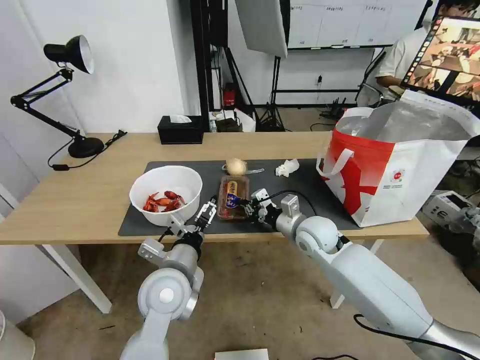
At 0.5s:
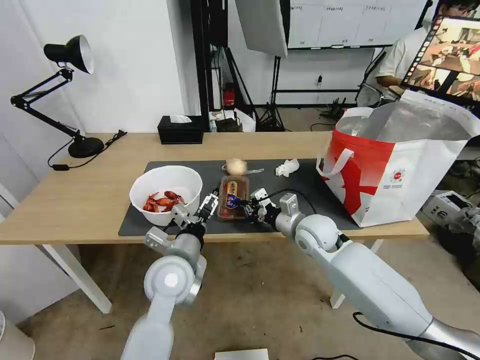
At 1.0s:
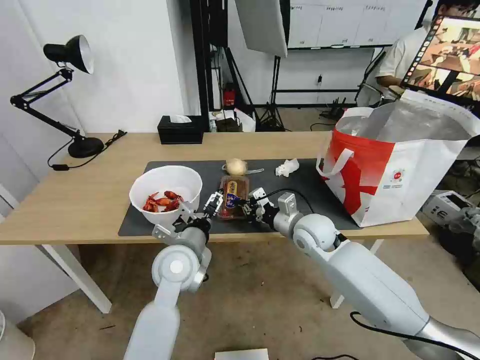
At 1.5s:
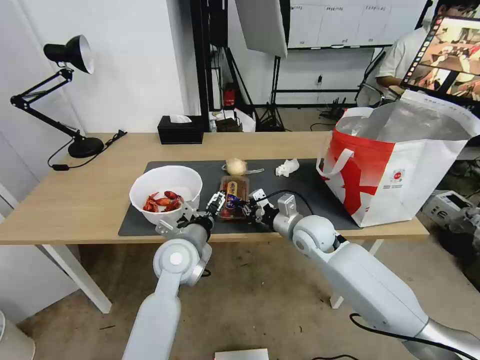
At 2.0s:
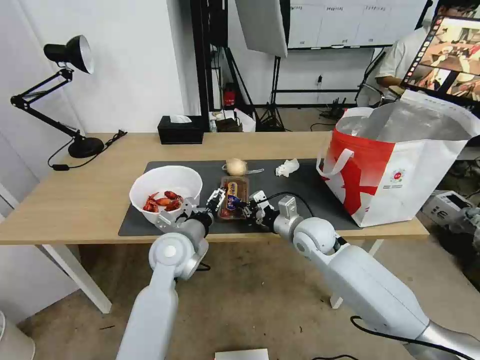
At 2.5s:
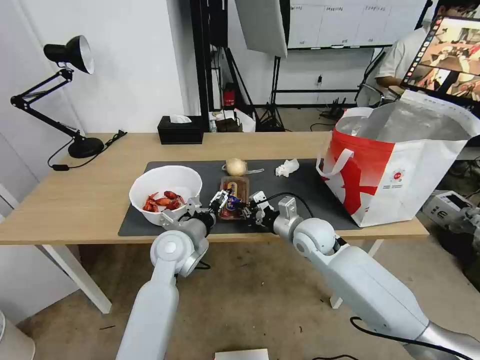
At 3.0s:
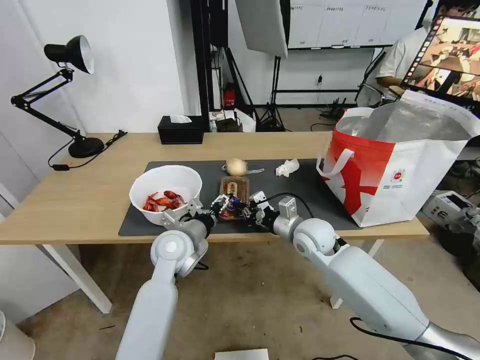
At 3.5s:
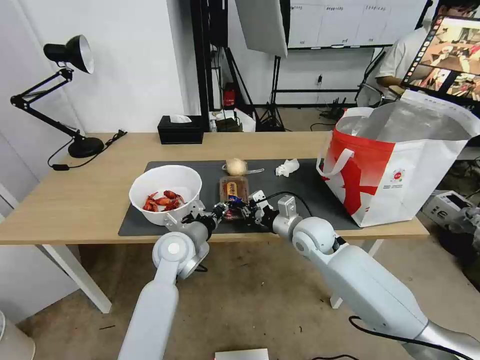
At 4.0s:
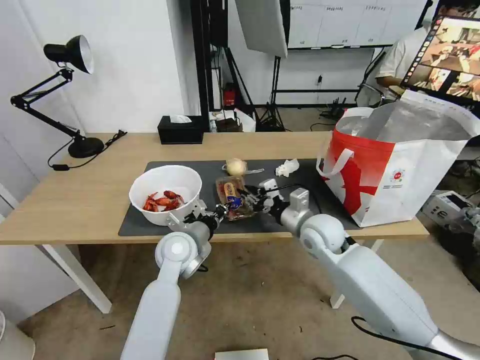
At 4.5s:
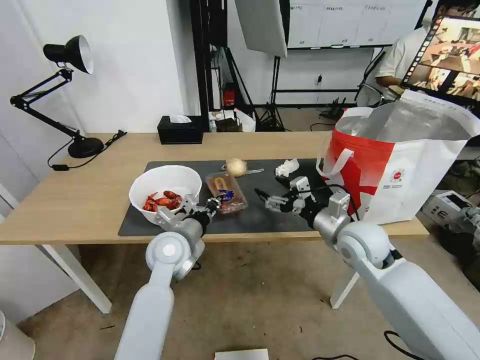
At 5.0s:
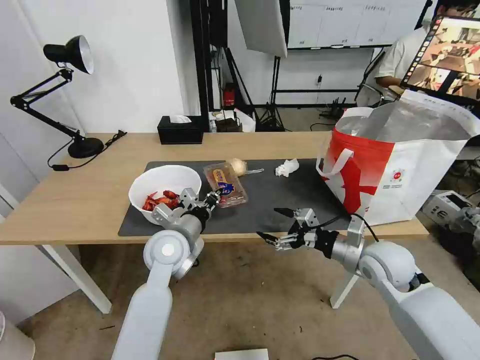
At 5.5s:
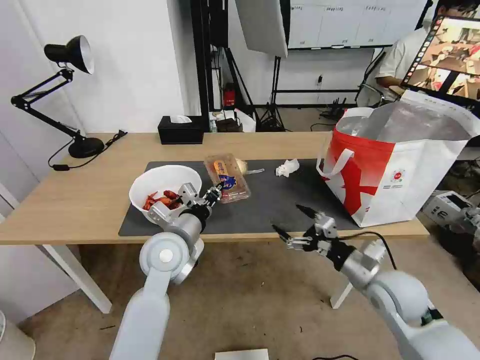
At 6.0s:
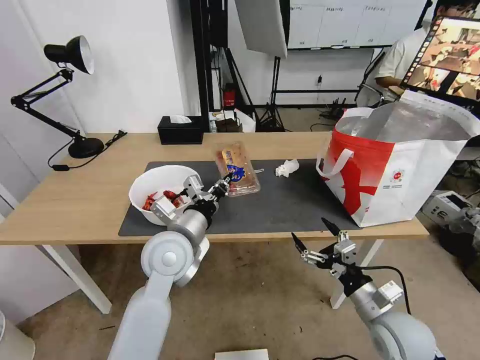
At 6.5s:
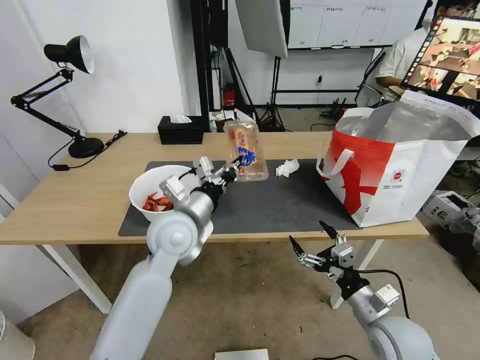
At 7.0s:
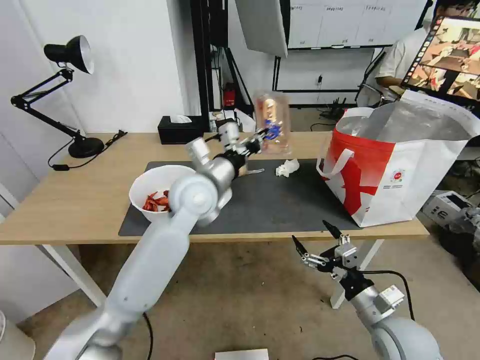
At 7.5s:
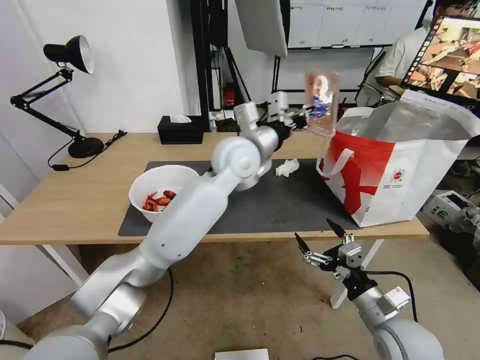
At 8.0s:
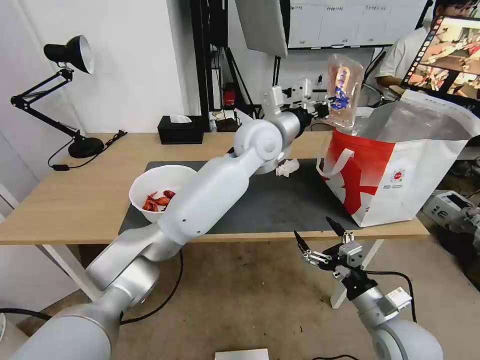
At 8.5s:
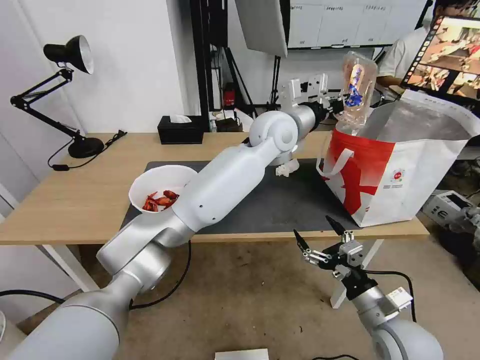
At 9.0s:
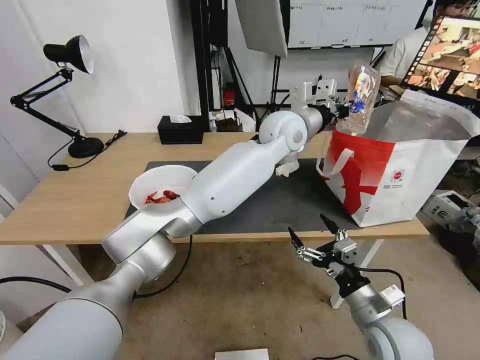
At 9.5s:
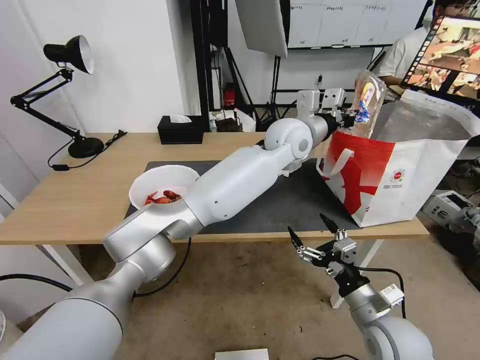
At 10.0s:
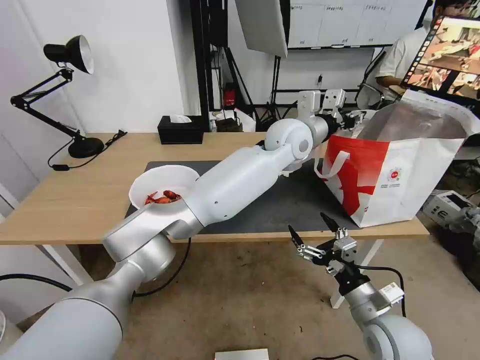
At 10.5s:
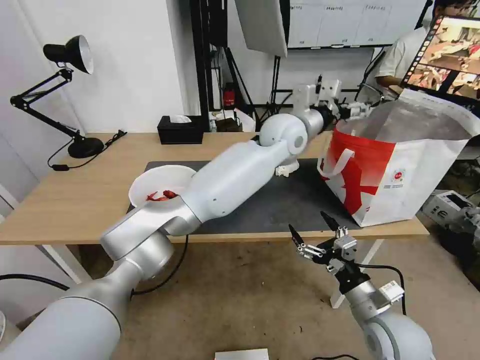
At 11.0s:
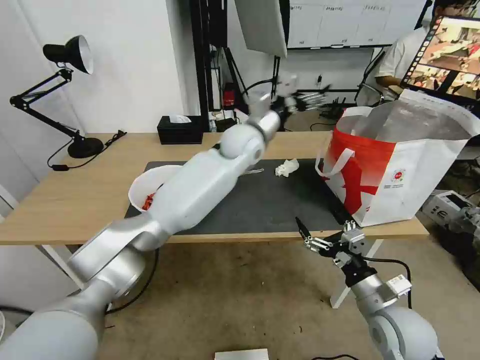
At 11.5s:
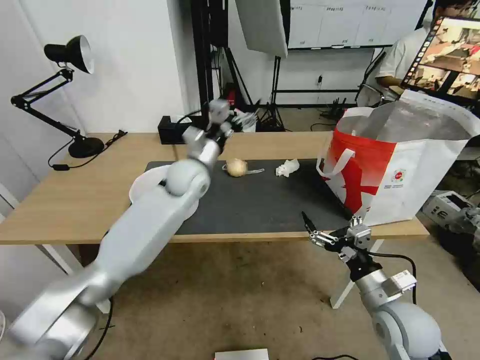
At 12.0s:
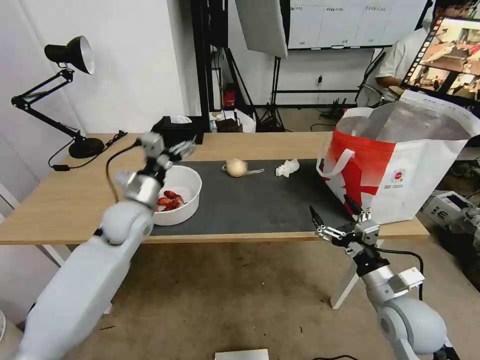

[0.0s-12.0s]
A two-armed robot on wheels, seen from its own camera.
Task of the whole recording: Pick up the trash from the table and place it into the takeout bag.
0.0s to 2.0s: The left gripper travels forward by roughly 10 cm.
2.0s to 4.0s: The left gripper closes its fingers.
4.0s to 6.0s: The left gripper travels upward and backward by about 10 cm; the right gripper travels backward and to the right by roughly 25 cm, and opens its fingers.
6.0s to 8.0s: The left gripper heads forward, to the right and upward, covering approximately 30 cm.
8.0s to 10.0s: The left gripper goes about 5 cm to the right, and opens up.
10.0s to 12.0s: The left gripper travels to the left and downward by about 40 cm, and opens up.

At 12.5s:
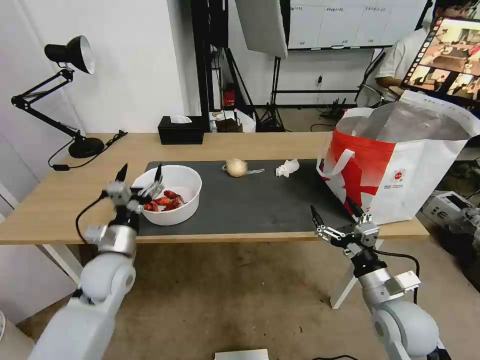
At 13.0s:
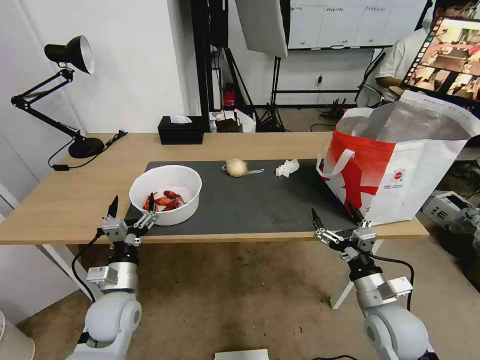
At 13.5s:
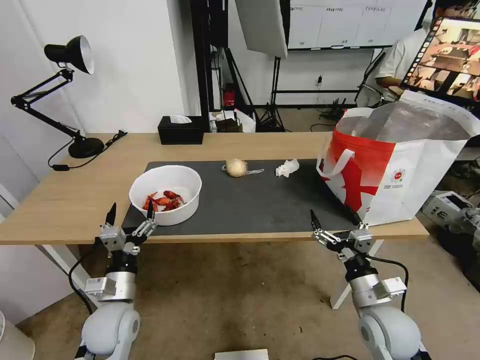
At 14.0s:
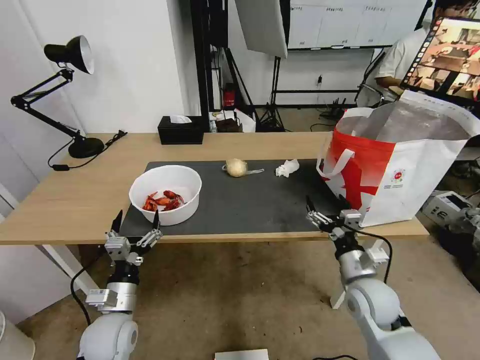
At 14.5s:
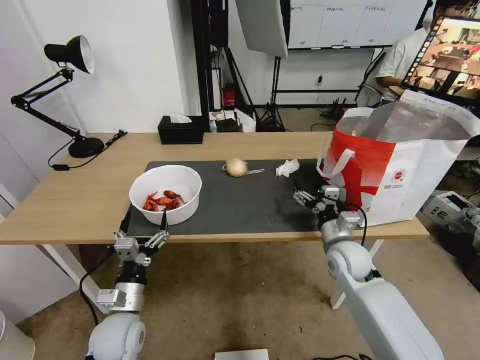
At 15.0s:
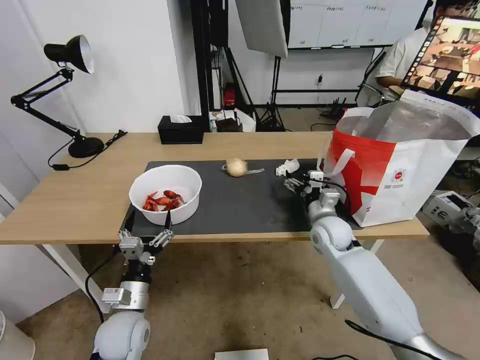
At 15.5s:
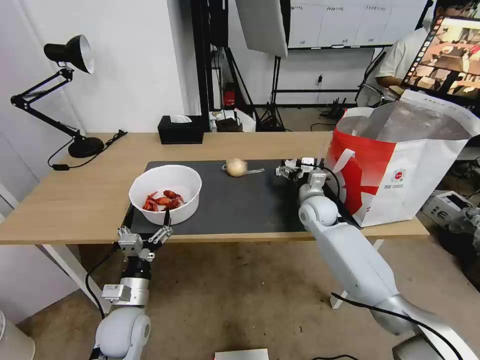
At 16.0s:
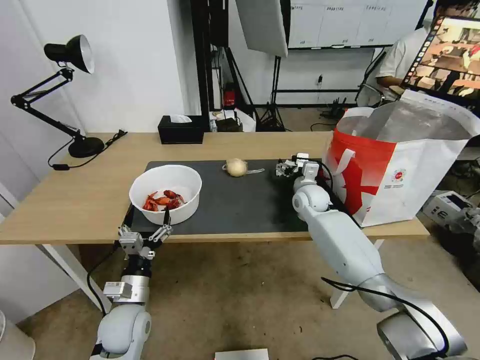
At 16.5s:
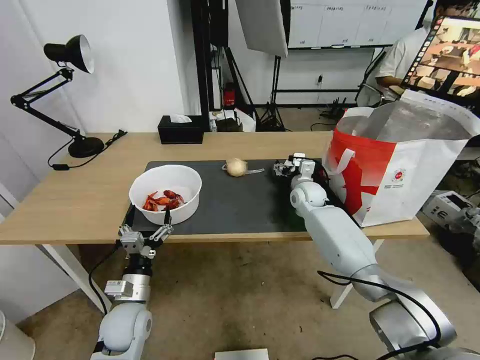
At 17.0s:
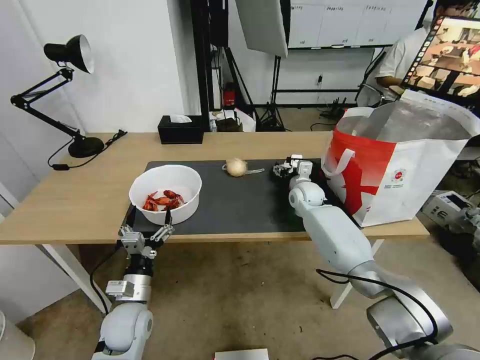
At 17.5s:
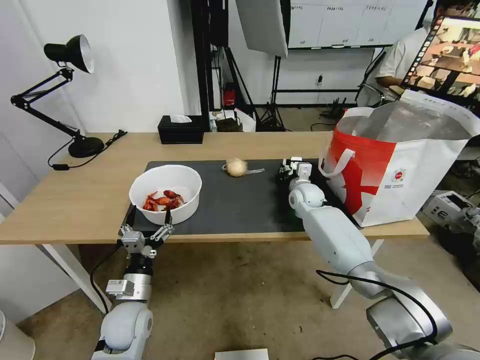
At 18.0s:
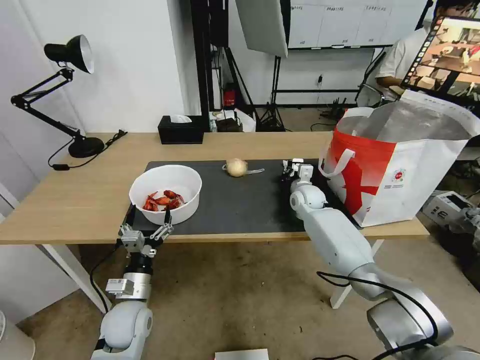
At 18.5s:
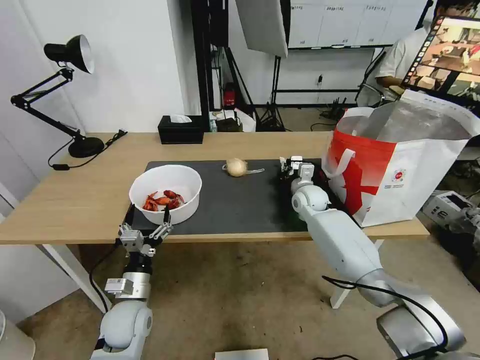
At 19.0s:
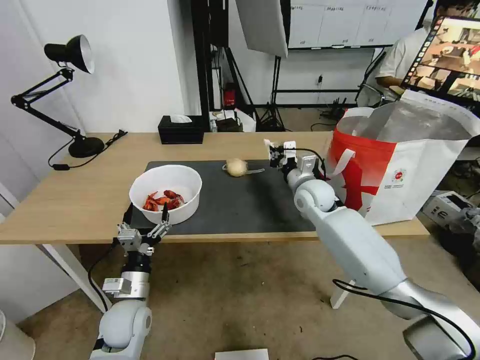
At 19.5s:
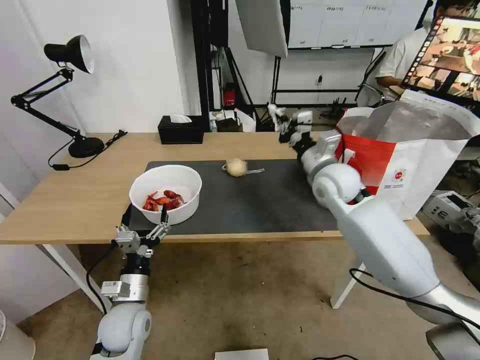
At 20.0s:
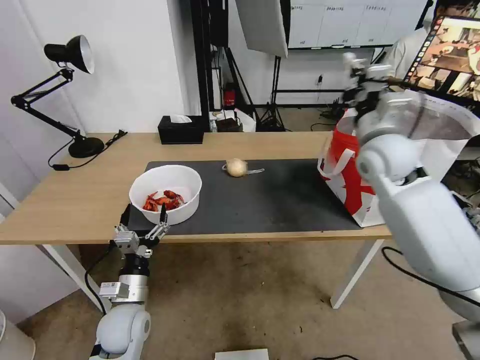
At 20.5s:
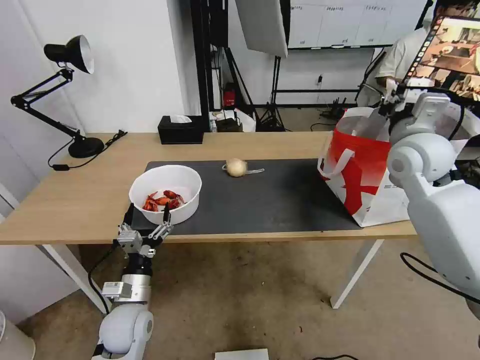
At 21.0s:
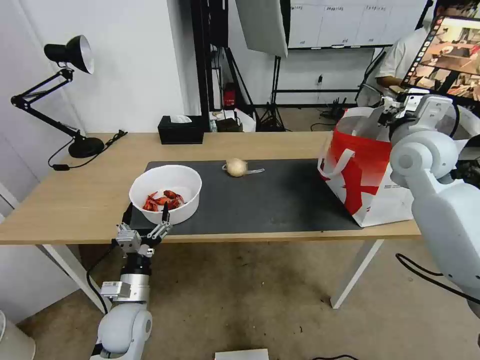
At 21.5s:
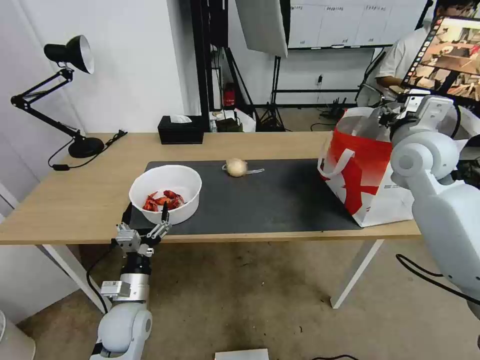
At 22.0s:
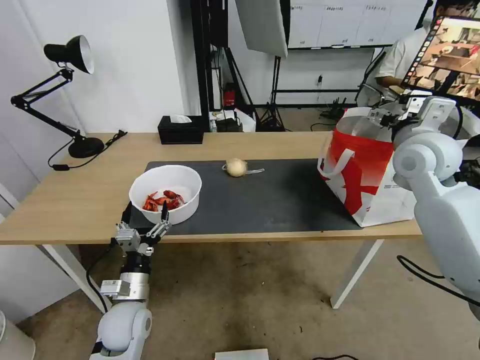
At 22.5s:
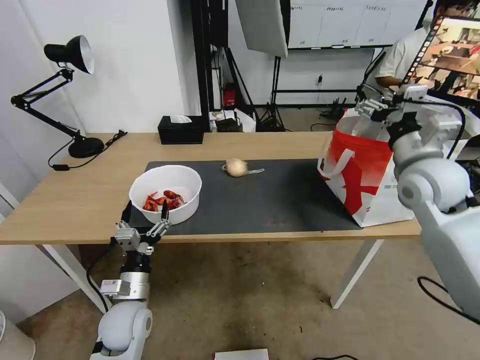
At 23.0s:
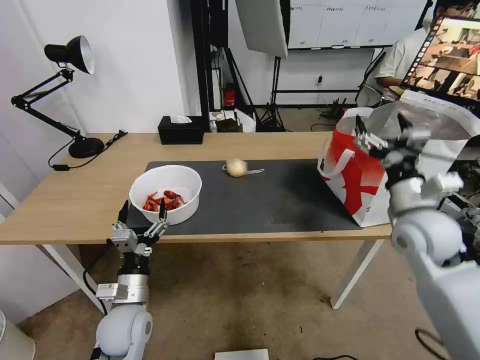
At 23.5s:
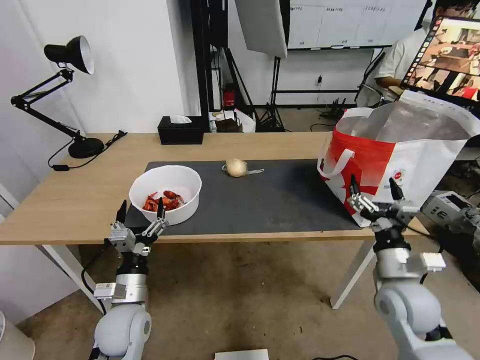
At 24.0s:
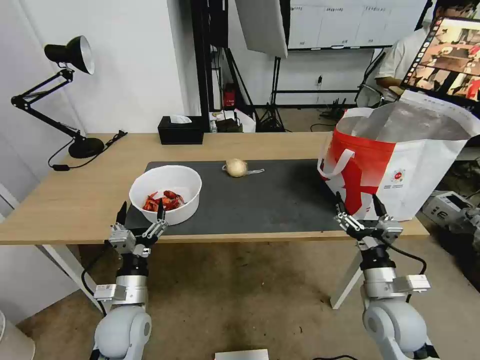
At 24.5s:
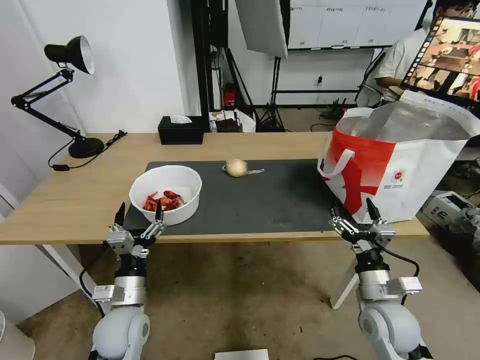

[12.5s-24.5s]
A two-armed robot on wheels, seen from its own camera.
Task of the whole recording: Pick up the trash from the table and place it into the takeout bag.
12.5s to 14.5s: The left gripper travels backward and downward by some 10 cm; the right gripper is displaced forward by some 15 cm.
14.5s to 16.5s: The right gripper is displaced forward by about 20 cm.
16.5s to 18.5s: The right gripper closes.
18.5s to 20.5s: The right gripper goes roughly 30 cm upward, to the right and backward.
20.5s to 22.5s: The right gripper opens up.
22.5s to 24.5s: The right gripper goes roughly 30 cm downward and backward.

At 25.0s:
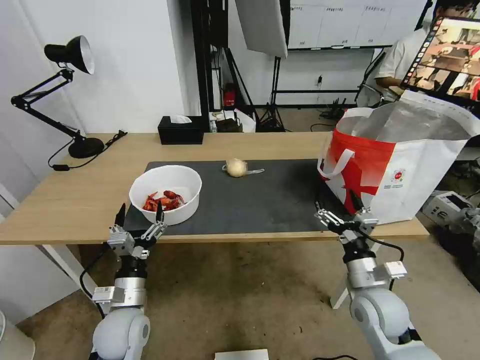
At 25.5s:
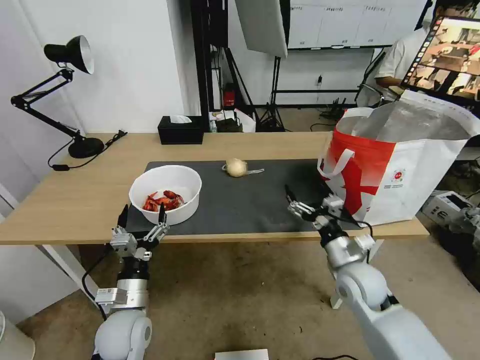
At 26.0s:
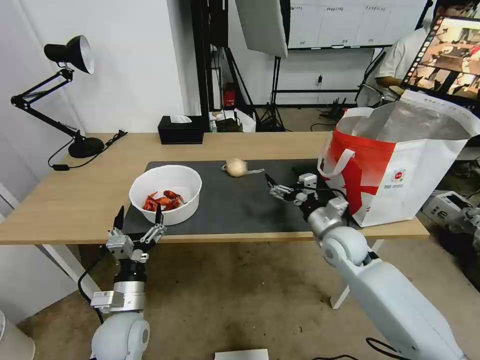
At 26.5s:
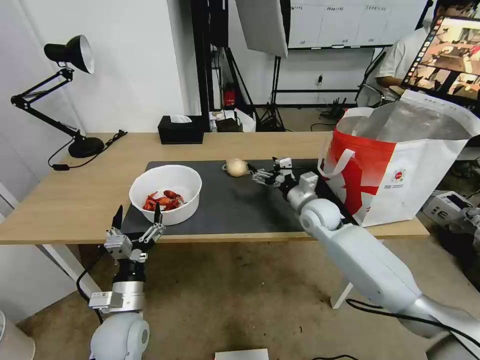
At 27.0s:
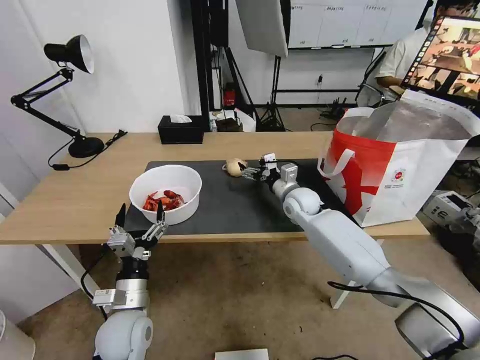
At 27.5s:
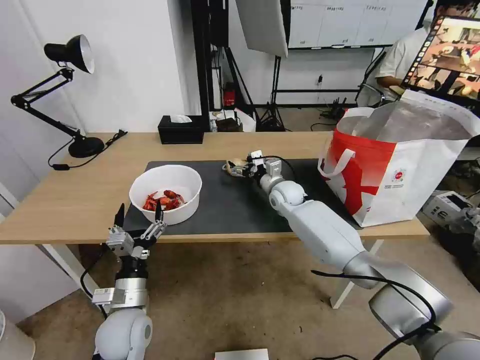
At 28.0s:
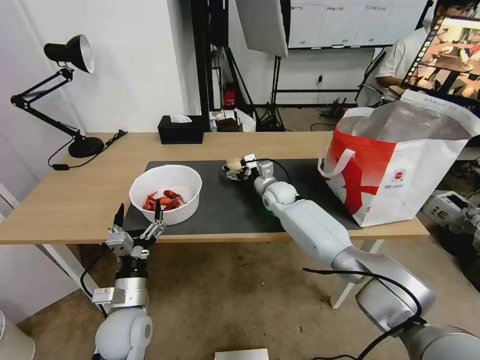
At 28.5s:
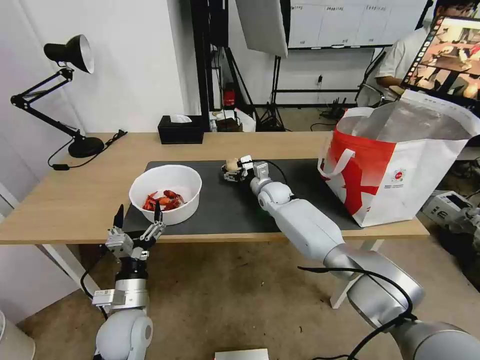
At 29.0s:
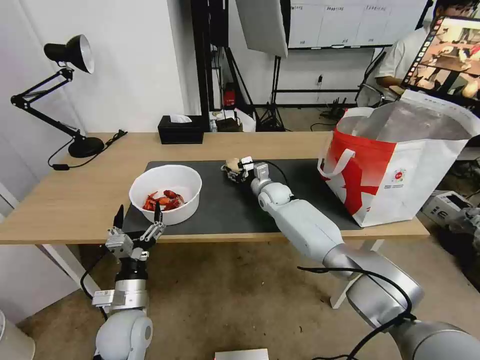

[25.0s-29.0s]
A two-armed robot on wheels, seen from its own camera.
Task of the whole recording: Pick up the trash from the table and place it into the takeout bag.
25.0s to 27.0s: The right gripper travels forward by roughly 30 cm.
27.0s to 29.0s: The right gripper goes some 10 cm to the left and forward, and closes.
